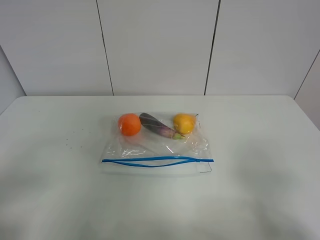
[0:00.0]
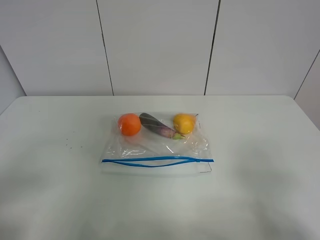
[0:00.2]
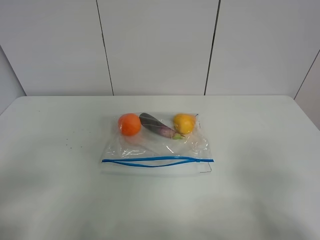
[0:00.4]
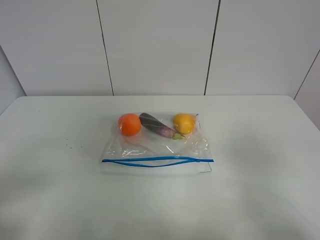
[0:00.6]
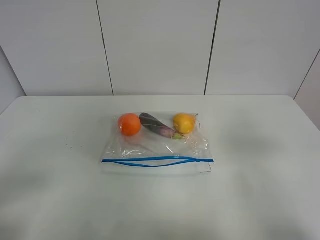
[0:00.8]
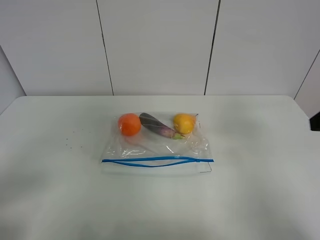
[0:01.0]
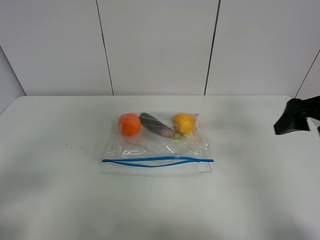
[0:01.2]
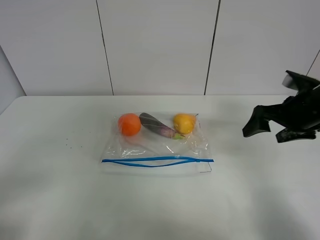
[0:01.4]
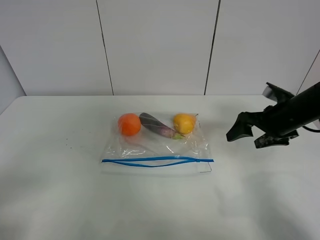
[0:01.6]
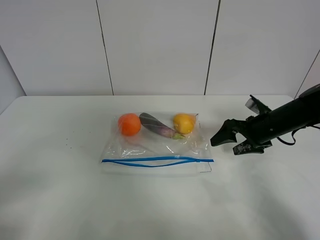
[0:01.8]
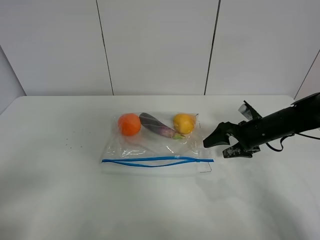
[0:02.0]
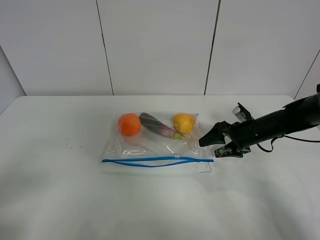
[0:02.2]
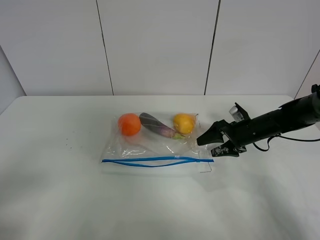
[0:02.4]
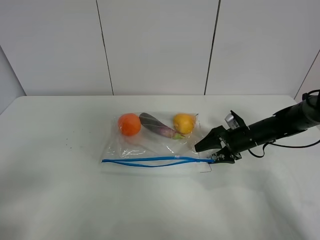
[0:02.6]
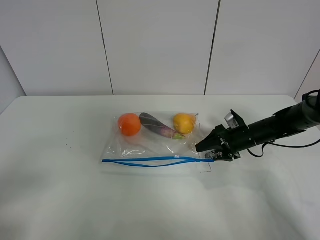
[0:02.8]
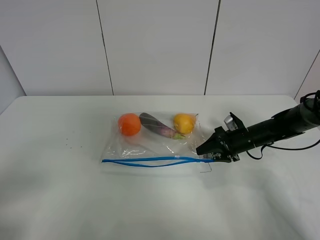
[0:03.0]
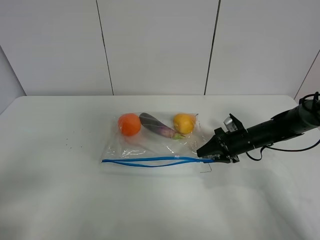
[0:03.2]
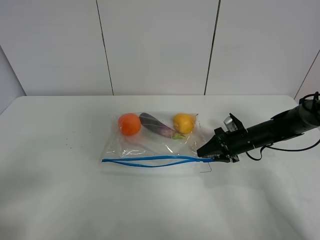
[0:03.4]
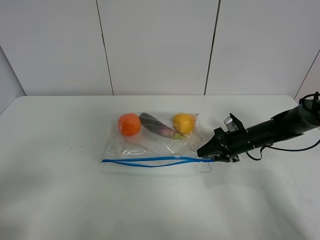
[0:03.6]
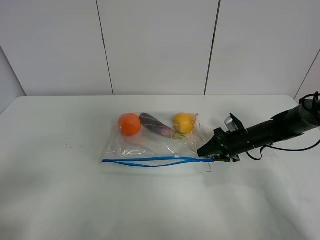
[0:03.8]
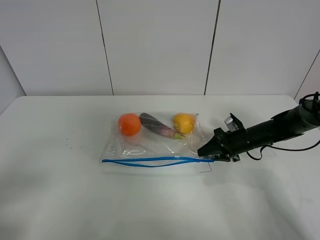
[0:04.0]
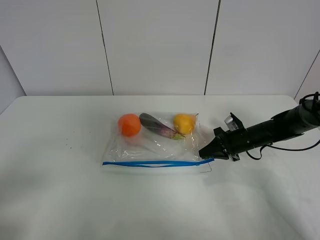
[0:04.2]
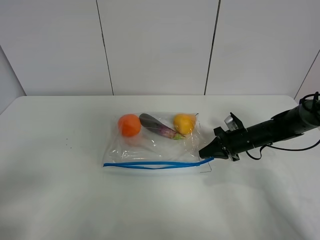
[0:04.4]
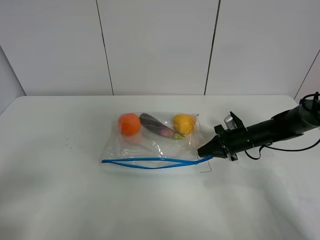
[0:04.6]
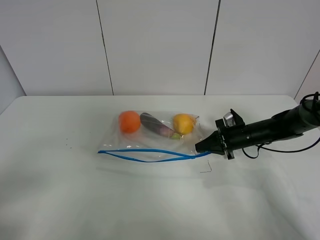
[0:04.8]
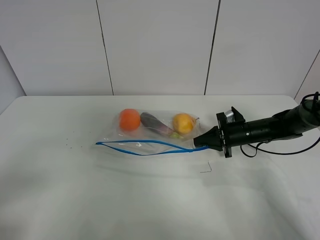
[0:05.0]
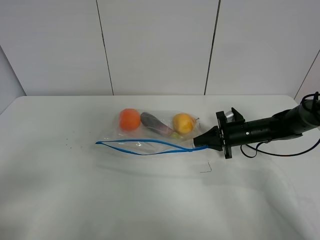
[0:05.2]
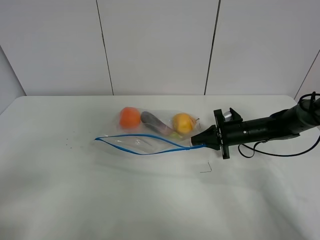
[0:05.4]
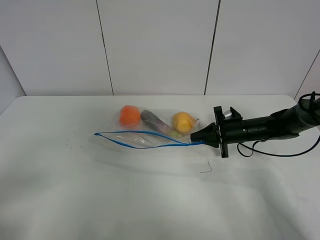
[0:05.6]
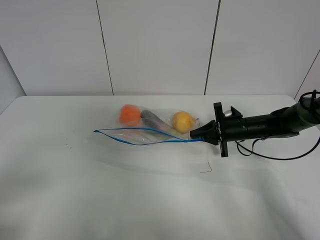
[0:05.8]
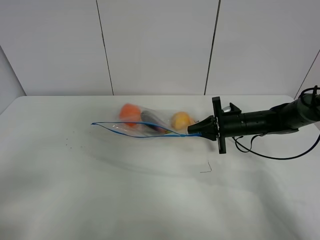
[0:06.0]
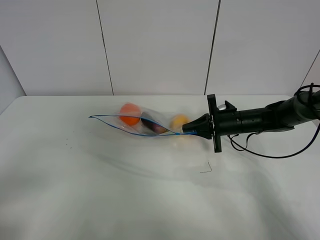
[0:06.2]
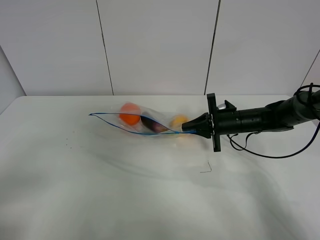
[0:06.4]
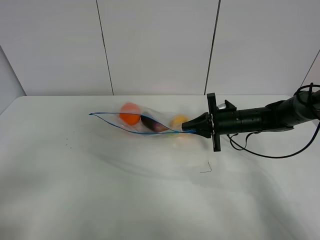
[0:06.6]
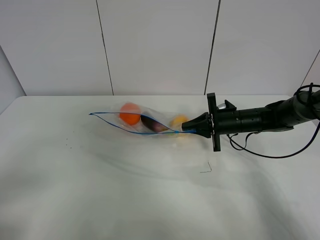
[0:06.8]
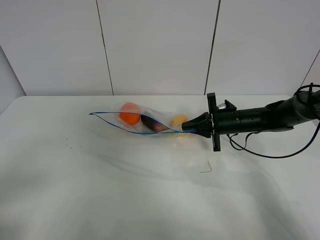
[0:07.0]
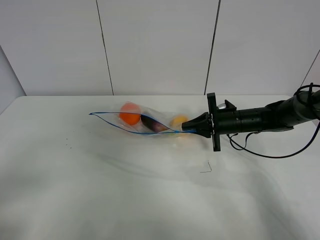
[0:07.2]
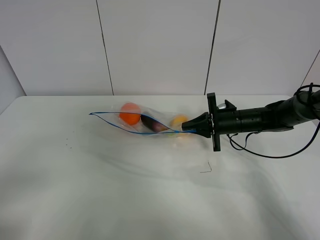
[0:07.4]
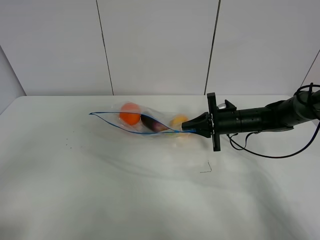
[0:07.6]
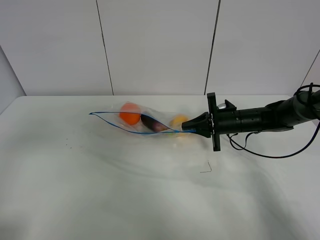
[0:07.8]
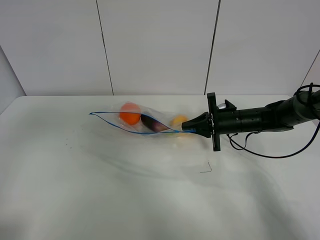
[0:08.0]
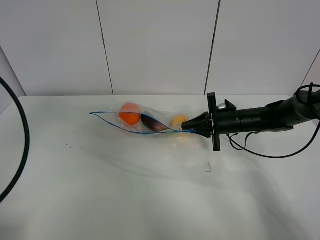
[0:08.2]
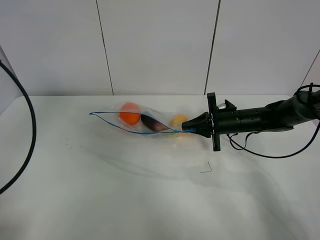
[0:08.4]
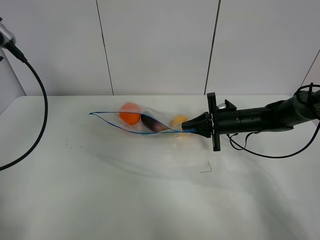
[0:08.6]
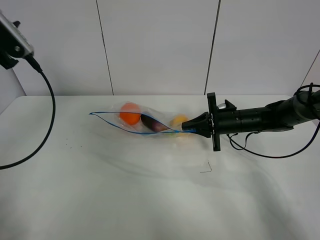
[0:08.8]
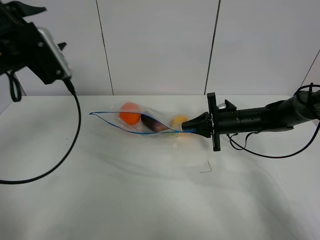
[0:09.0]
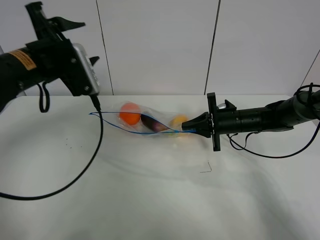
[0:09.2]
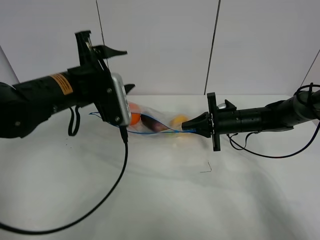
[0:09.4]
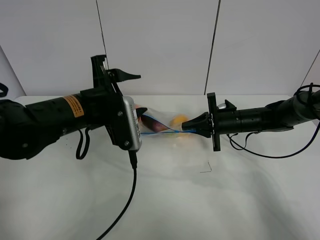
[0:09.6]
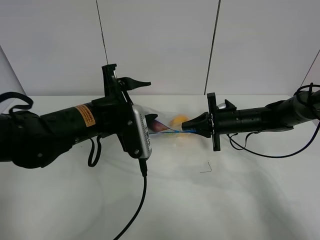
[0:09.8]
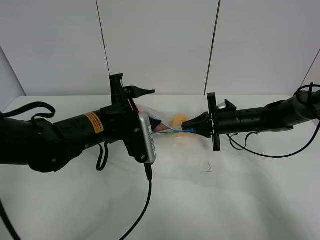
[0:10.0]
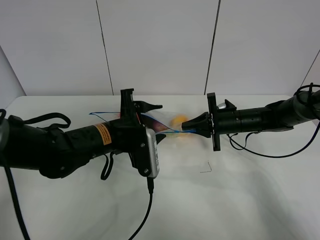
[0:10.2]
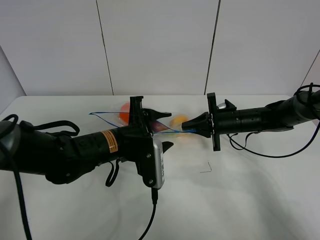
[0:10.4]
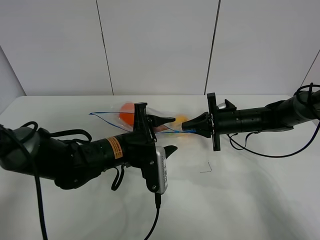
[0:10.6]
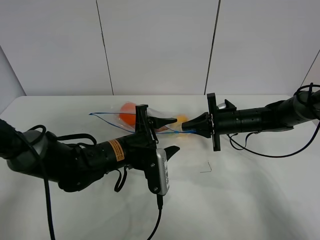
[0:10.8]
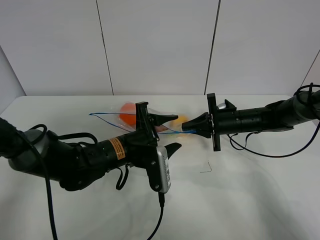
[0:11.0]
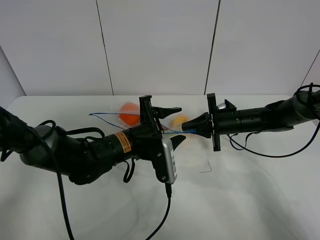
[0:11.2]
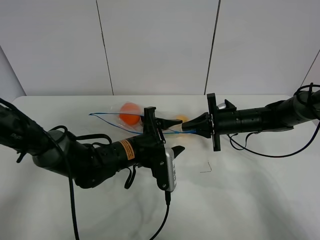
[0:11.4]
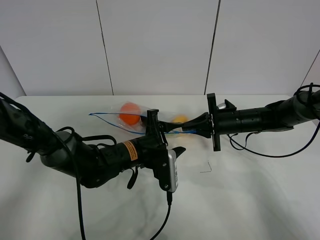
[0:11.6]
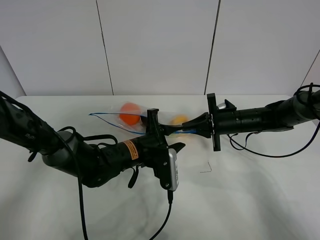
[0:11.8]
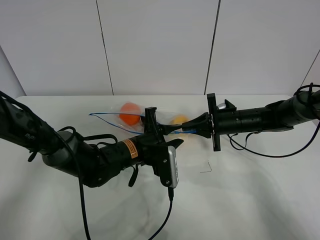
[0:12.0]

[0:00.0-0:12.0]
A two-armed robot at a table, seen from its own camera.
Step, 0:00.0 to 0:04.2: Grasp the fruit bag with right gripper.
Step, 0:04.4 to 0:06.8: Lift the fruit bag with your right gripper.
0:00.0 to 0:01.6: The right gripper goes roughly 30 cm forward.
0:01.6 to 0:03.0: The right gripper heads downward, covering roughly 10 cm, and closes up.
0:03.0 to 0:04.4: The right gripper closes its fingers.
0:04.4 to 0:06.0: The right gripper moves about 5 cm.
0:06.0 to 0:07.6: The left gripper shifts by about 5 cm.
0:07.6 to 0:09.0: The left gripper goes some 25 cm forward.
0:09.0 to 0:10.4: The left gripper travels to the right and downward by roughly 20 cm.
0:10.4 to 0:12.0: The left gripper changes place by roughly 5 cm, and closes its fingers.

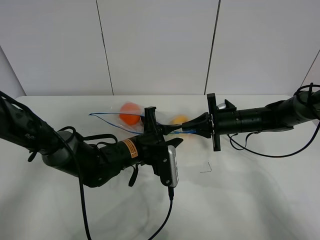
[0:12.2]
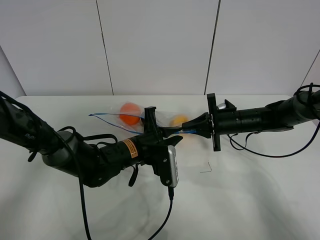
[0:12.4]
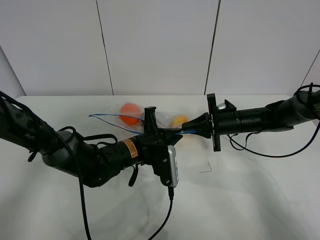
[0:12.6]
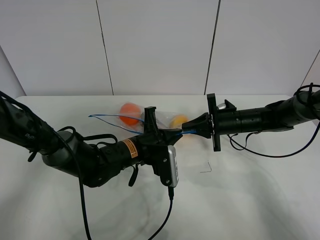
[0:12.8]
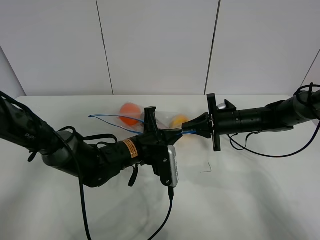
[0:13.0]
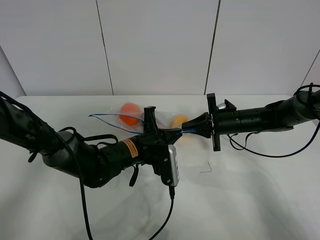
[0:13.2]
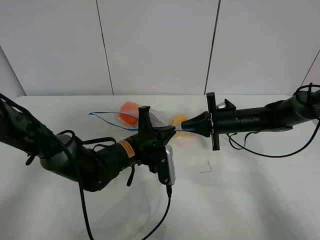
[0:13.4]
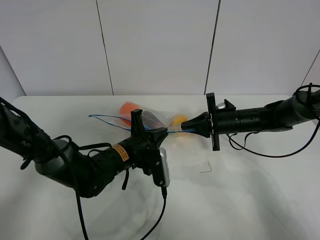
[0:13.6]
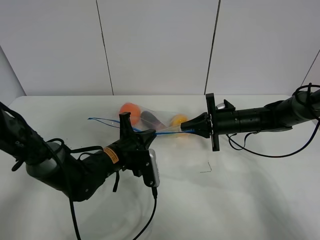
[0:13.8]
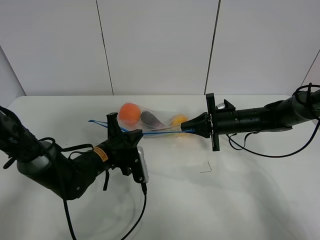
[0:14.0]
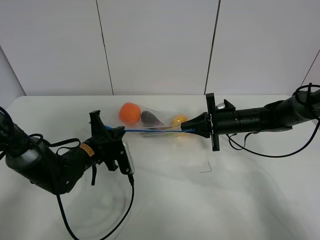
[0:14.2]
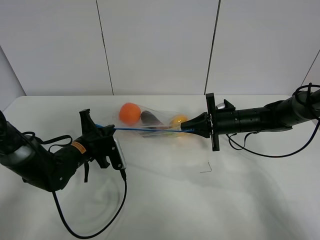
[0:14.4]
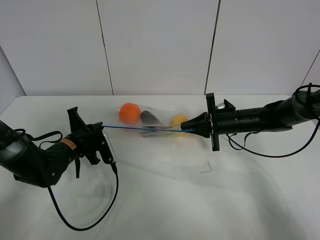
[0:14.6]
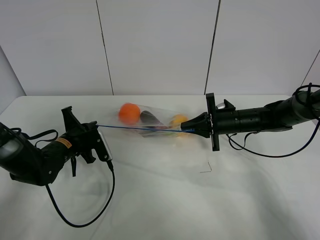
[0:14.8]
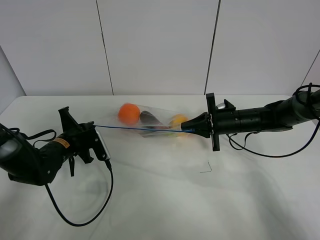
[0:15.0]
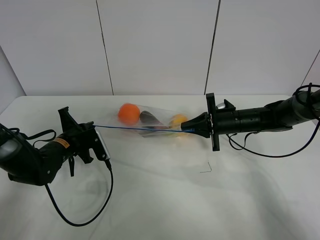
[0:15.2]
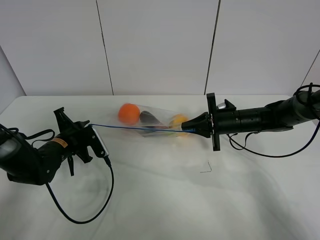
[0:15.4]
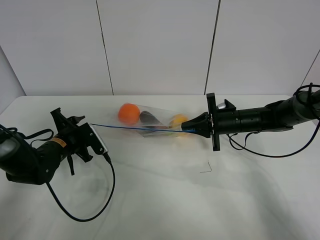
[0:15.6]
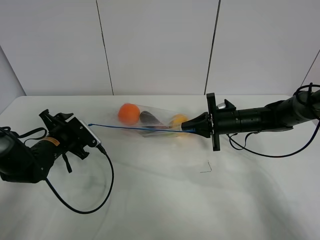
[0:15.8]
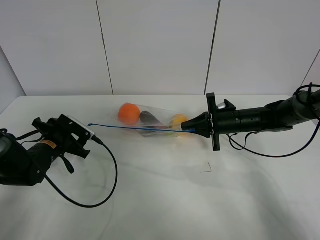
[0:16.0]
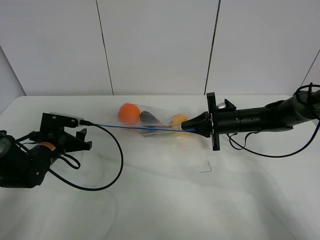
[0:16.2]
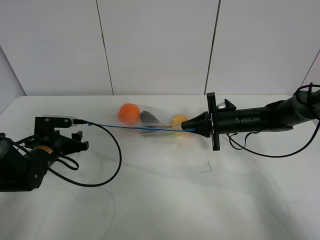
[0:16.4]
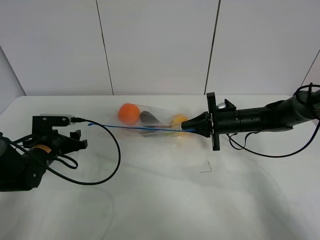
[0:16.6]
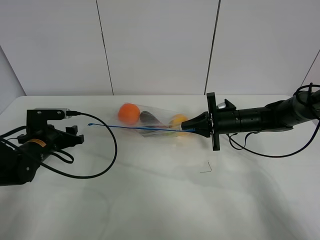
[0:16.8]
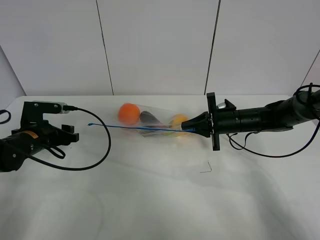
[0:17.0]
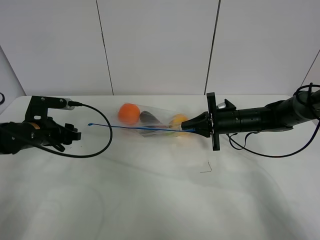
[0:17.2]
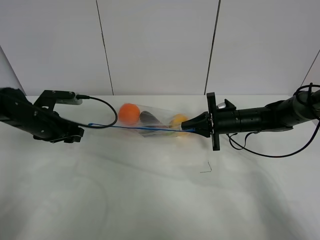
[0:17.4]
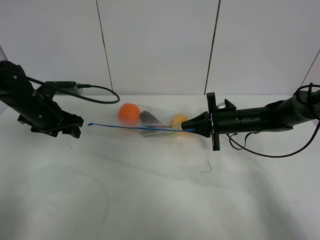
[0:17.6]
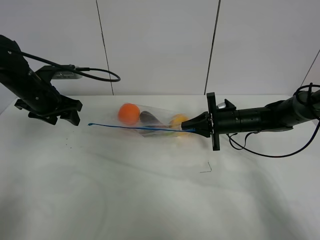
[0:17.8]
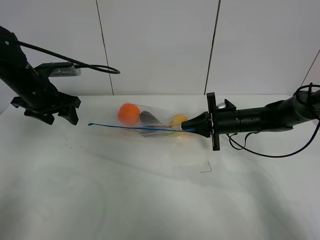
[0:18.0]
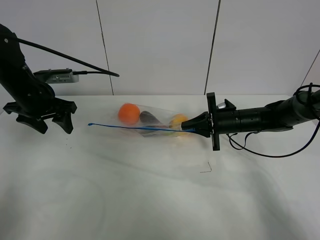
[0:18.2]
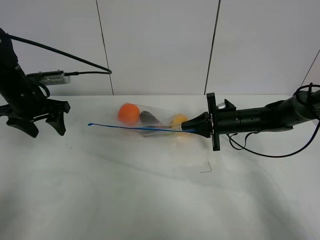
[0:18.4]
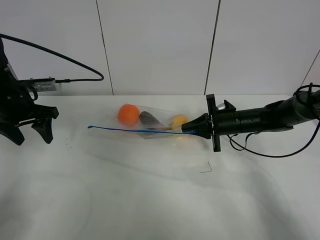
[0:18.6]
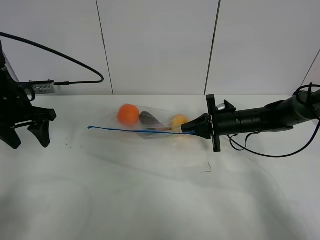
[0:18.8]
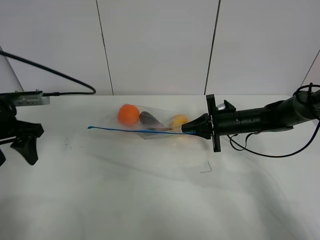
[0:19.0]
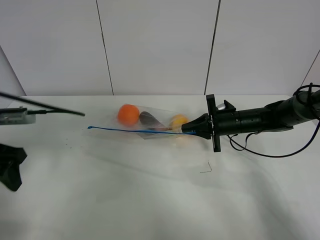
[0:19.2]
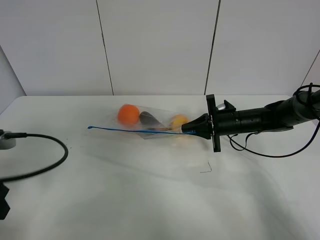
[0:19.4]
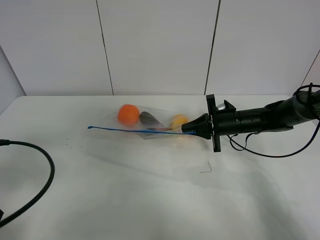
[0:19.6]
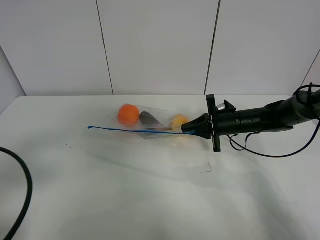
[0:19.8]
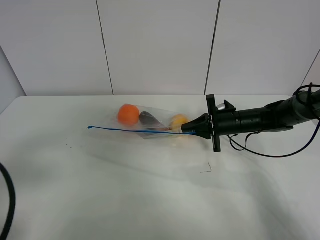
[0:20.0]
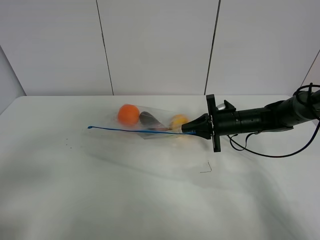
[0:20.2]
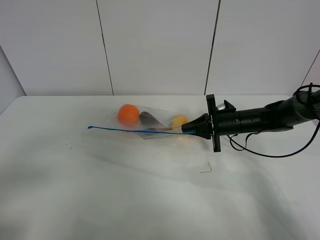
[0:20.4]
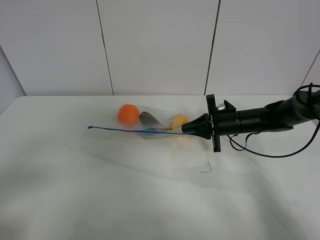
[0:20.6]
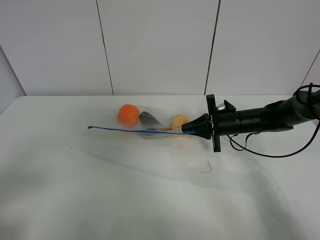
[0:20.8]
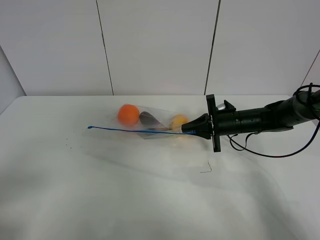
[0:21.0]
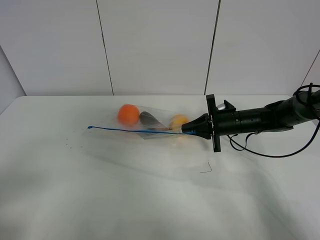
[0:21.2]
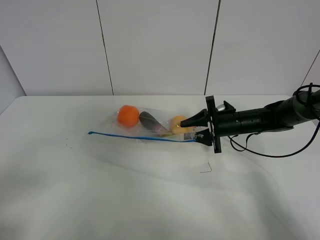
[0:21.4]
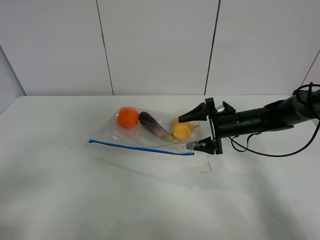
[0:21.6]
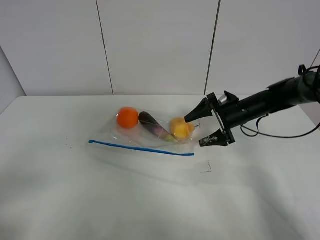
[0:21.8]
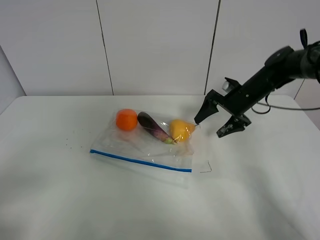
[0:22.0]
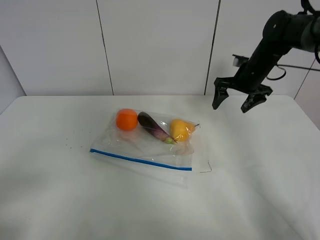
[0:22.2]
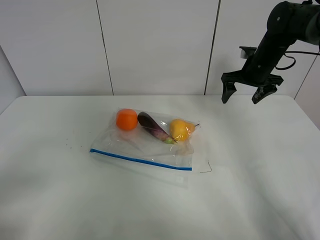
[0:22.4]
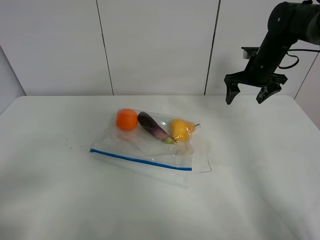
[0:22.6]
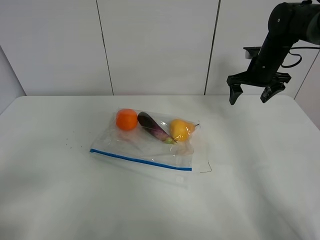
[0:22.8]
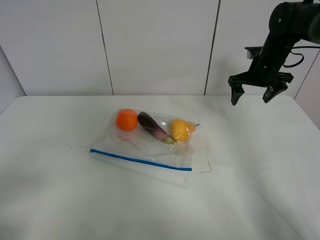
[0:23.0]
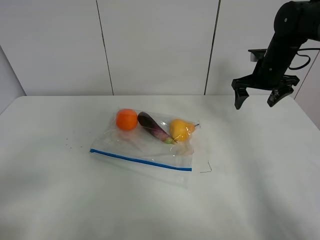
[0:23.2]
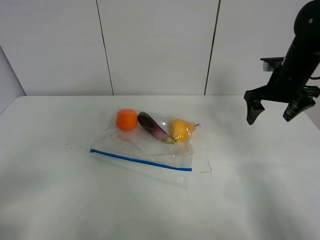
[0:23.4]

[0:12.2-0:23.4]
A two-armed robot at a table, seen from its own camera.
Step, 0:12.2 to 0:15.8: Pull the fruit bag with left gripper.
0:12.2 to 0:13.8: The left gripper is displaced to the left by some 5 cm, and closes up.
0:13.8 to 0:15.4: The left gripper is displaced to the left by approximately 15 cm, and opens up.
0:15.4 to 0:17.0: The left gripper heads to the left, covering about 5 cm, and opens up.
0:17.0 to 0:18.6: The left gripper travels upward by about 10 cm.
0:18.6 to 0:20.2: The left gripper travels backward by roughly 30 cm.
0:20.2 to 0:21.8: The right gripper opens.
0:21.8 to 0:23.4: The right gripper is displaced upward, backward and to the right by about 15 cm.
